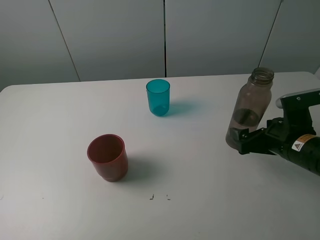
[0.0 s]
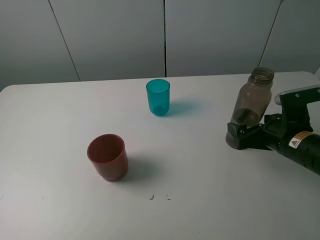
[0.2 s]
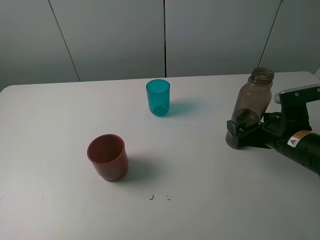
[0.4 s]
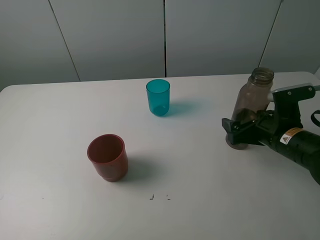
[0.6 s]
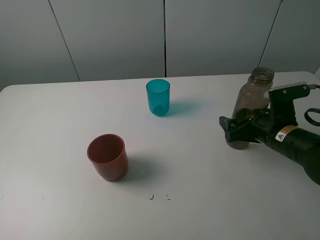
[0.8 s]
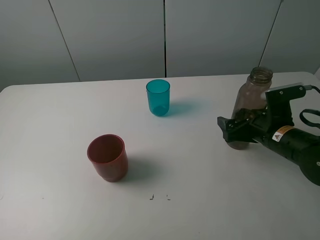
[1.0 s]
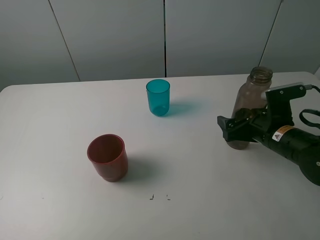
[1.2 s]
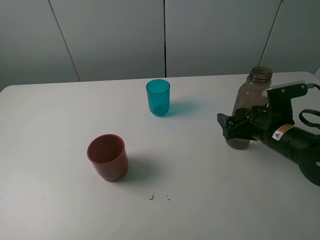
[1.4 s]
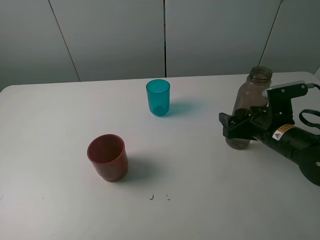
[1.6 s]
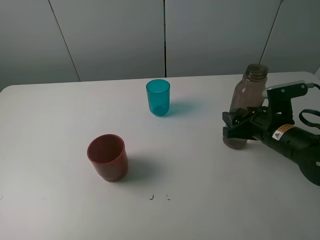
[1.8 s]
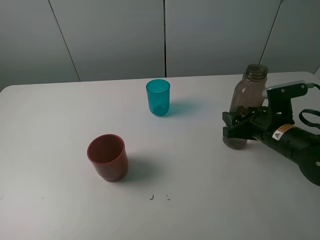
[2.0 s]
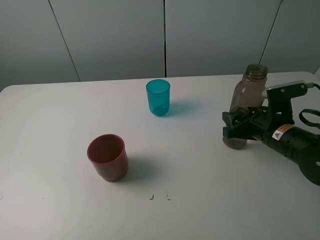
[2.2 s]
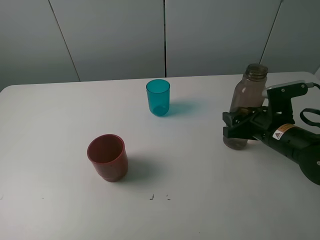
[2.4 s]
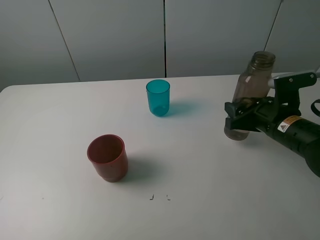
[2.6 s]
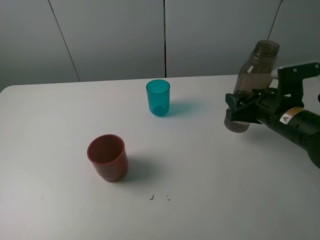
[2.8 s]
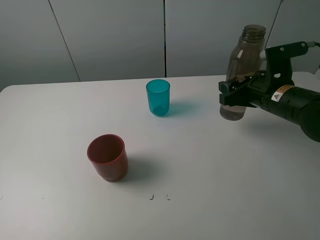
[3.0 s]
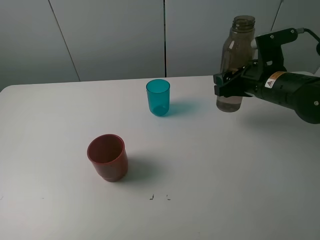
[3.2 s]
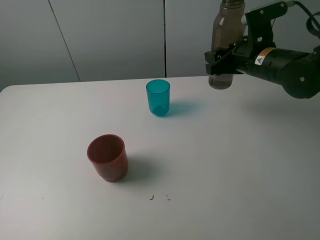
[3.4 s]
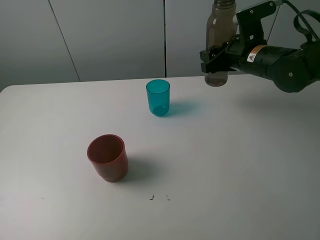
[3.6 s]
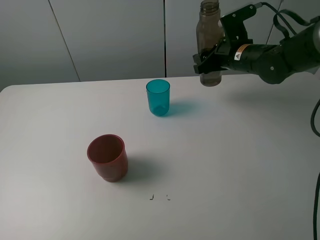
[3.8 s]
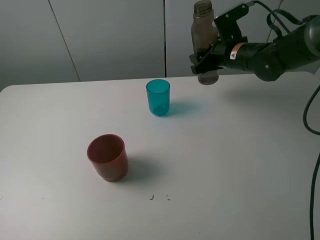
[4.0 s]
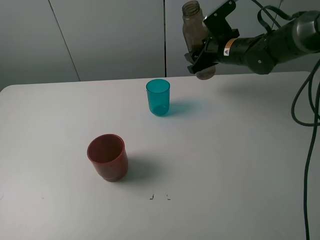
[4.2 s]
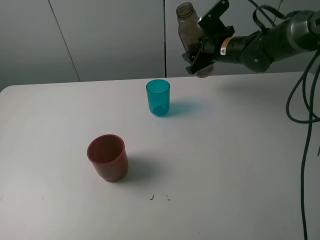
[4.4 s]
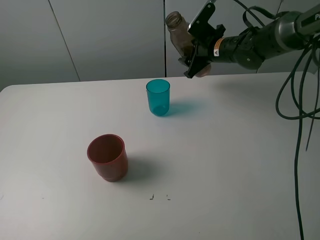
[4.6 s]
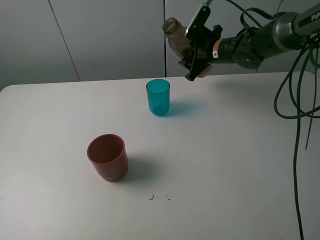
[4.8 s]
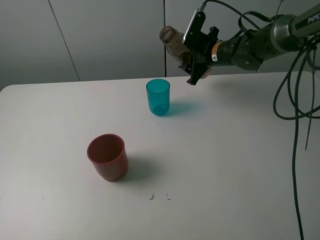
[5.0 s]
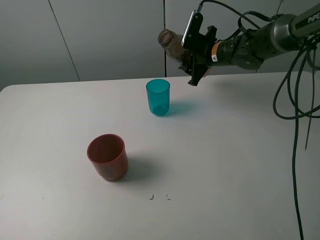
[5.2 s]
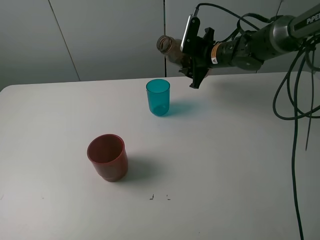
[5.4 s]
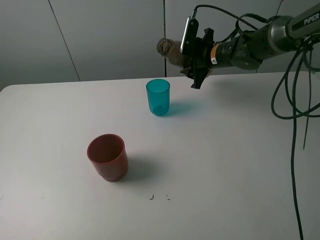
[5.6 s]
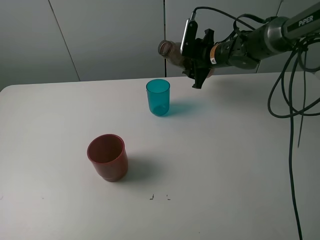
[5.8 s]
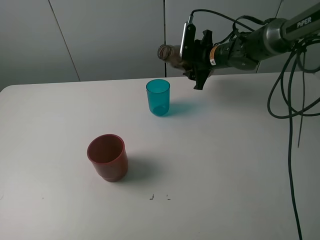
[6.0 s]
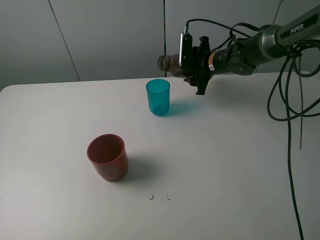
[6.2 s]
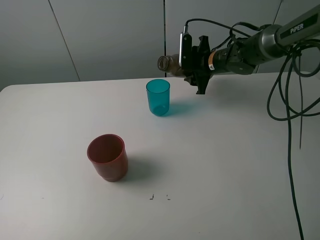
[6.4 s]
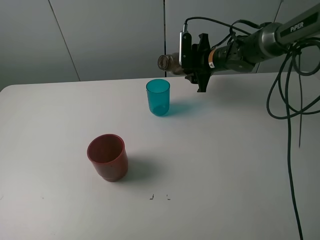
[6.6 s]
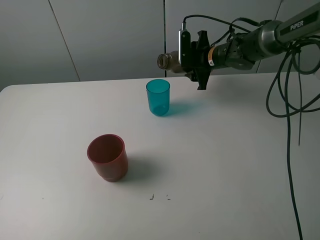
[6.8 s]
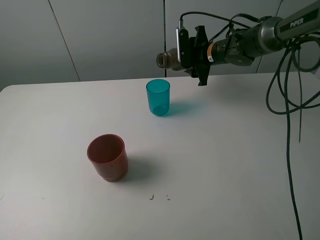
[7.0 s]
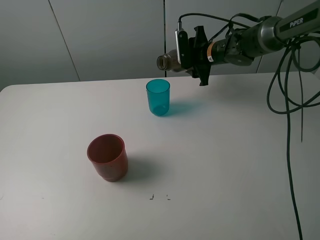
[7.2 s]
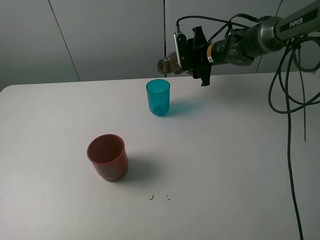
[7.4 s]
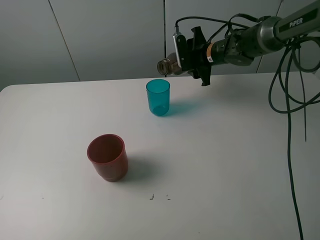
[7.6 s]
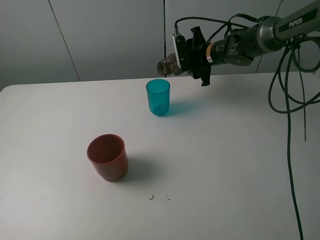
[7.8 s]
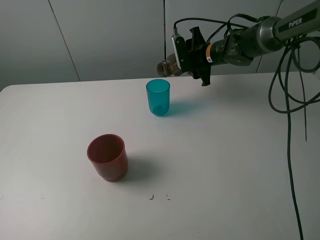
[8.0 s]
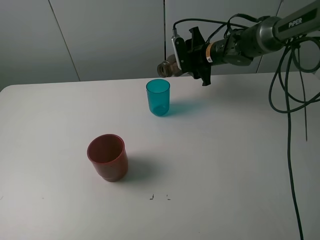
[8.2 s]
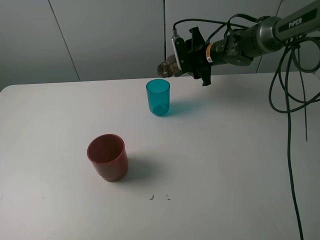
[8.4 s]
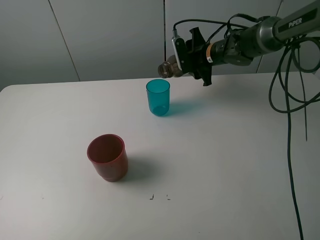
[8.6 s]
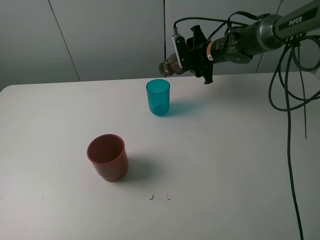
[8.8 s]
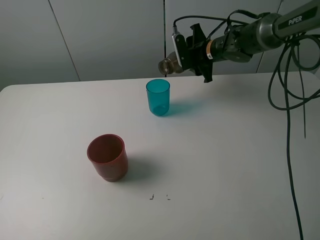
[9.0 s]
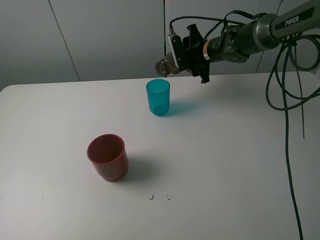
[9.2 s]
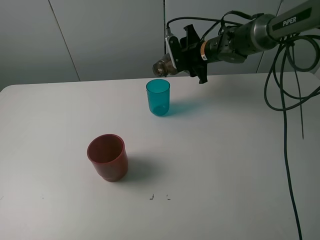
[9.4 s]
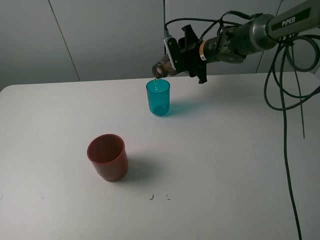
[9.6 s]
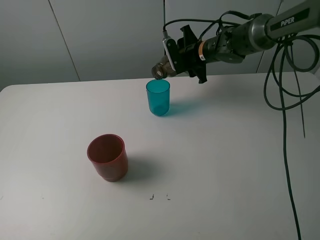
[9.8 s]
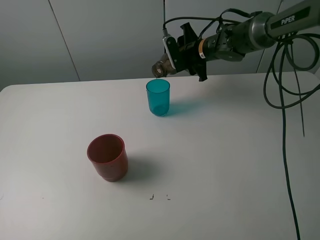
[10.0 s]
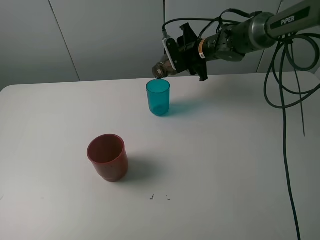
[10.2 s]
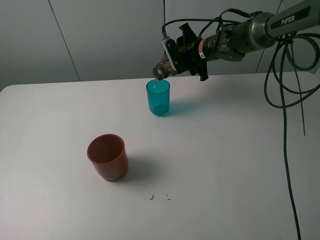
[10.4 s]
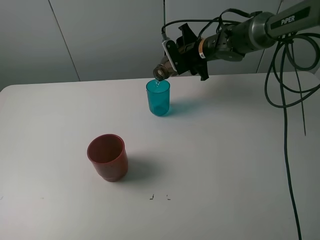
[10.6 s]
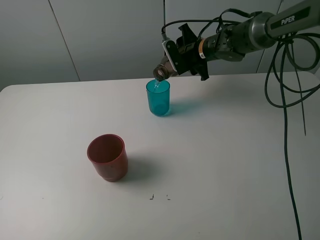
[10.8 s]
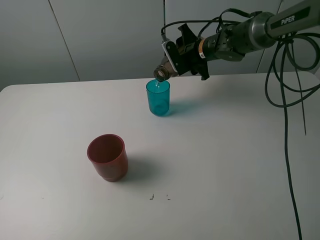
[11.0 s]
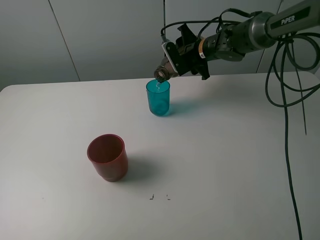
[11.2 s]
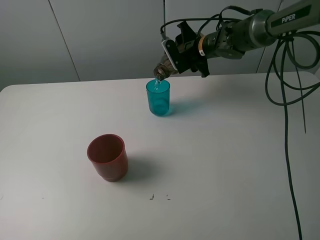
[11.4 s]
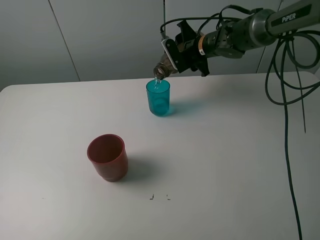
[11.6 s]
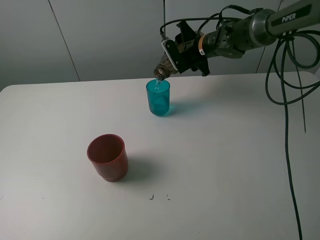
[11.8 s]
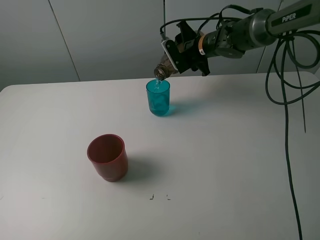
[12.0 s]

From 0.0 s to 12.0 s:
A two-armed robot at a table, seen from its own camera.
Task of the whole recording: pick up the bottle and pour water into the cup, then pick up the cup containing water and pour it into another cup.
From 0.0 s to 1.6 s: The right gripper closes its fingers.
From 1.6 s to 3.0 s: The right gripper travels upward by approximately 5 cm.
From 3.0 s to 4.4 s: The right gripper moves forward, approximately 15 cm.
From 7.6 s to 9.0 s: Both grippers stay put.
From 9.0 s to 12.0 s: The grippers move only a little.

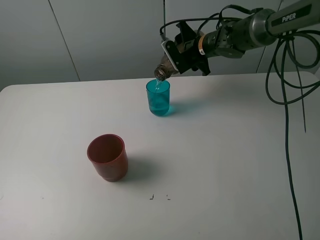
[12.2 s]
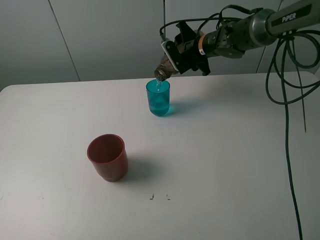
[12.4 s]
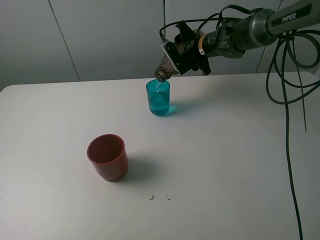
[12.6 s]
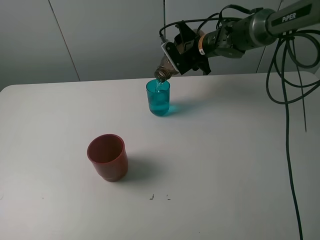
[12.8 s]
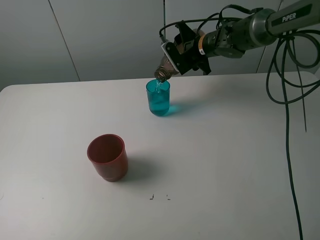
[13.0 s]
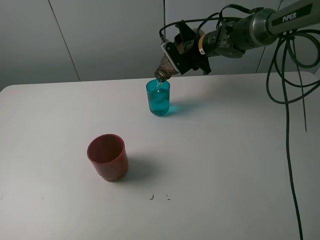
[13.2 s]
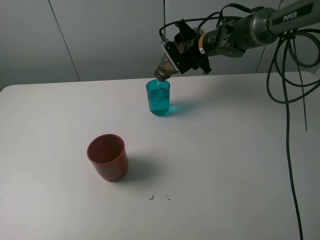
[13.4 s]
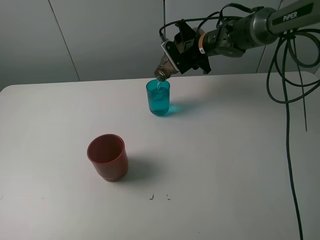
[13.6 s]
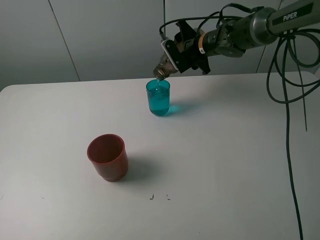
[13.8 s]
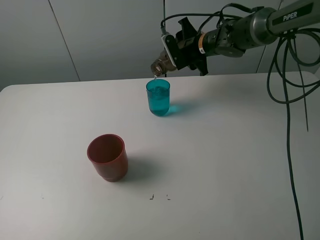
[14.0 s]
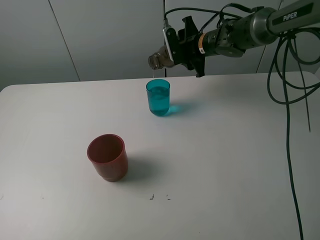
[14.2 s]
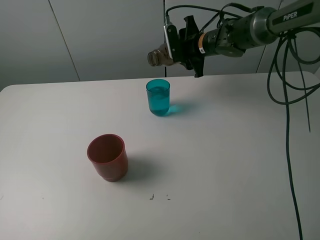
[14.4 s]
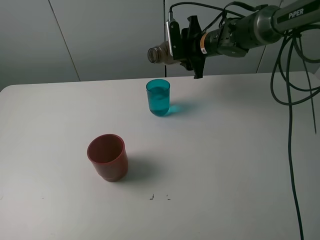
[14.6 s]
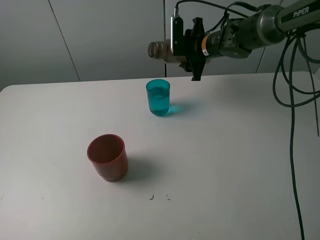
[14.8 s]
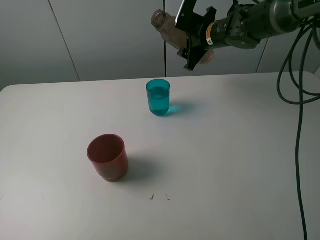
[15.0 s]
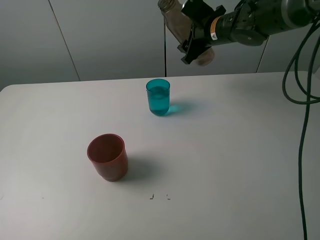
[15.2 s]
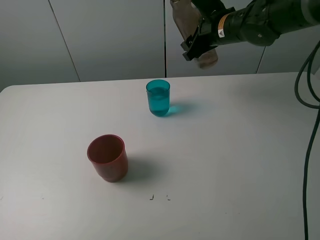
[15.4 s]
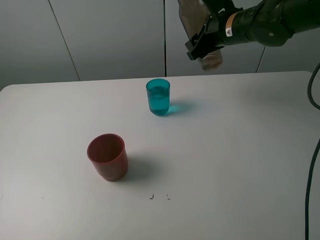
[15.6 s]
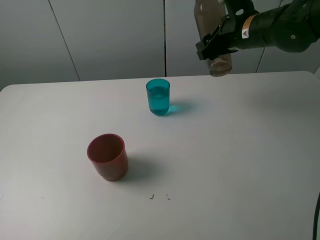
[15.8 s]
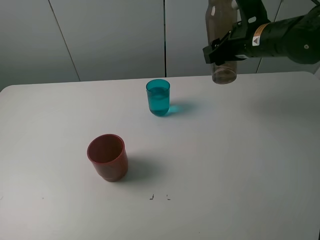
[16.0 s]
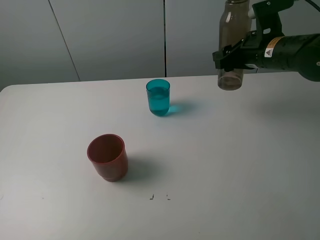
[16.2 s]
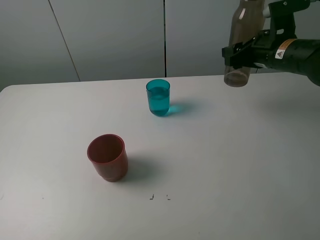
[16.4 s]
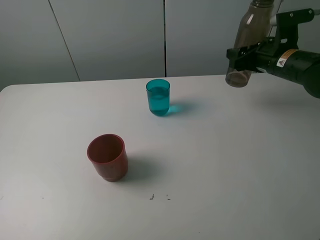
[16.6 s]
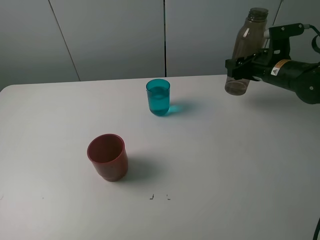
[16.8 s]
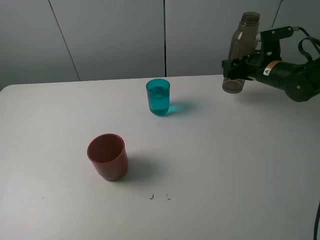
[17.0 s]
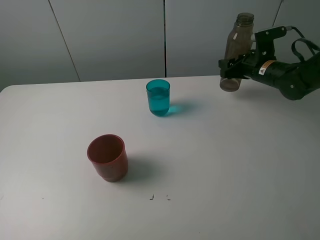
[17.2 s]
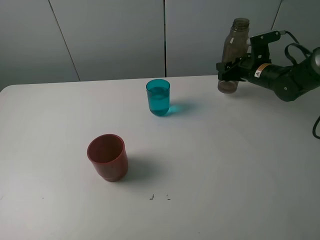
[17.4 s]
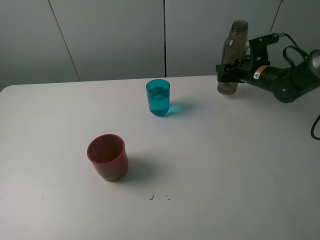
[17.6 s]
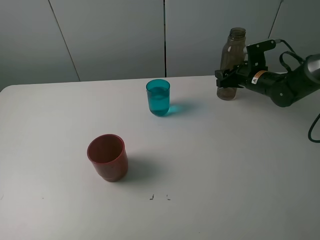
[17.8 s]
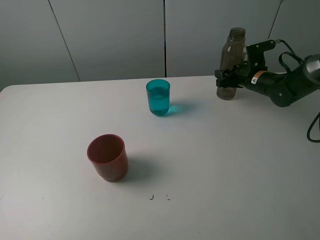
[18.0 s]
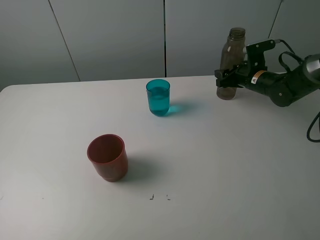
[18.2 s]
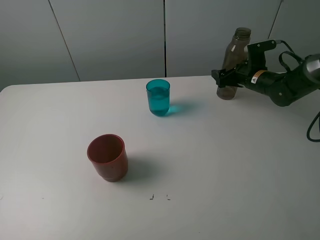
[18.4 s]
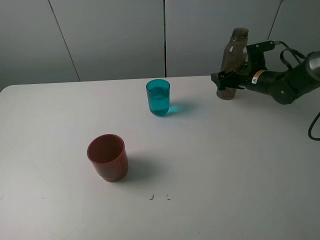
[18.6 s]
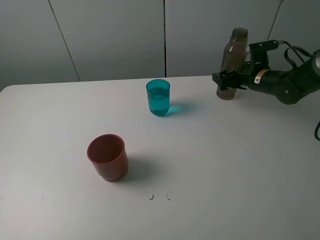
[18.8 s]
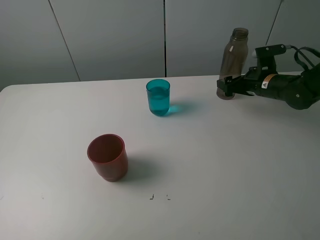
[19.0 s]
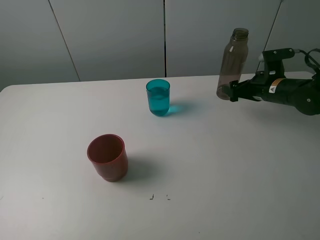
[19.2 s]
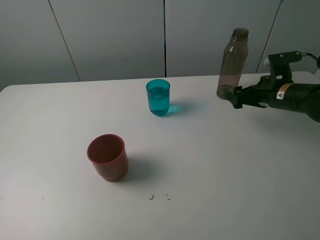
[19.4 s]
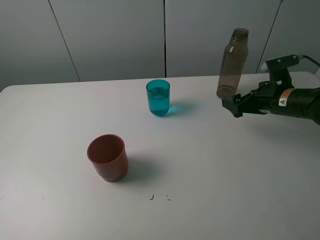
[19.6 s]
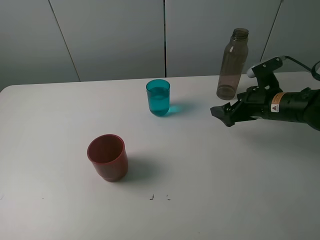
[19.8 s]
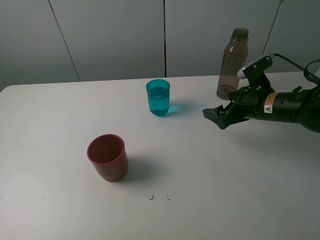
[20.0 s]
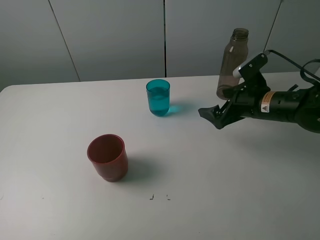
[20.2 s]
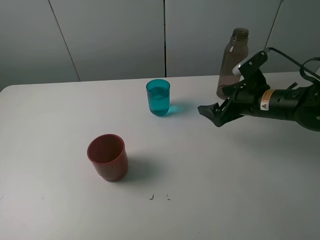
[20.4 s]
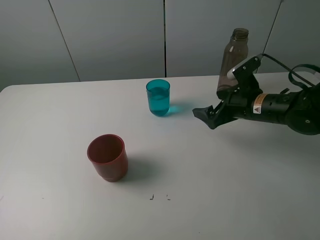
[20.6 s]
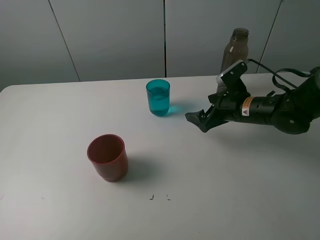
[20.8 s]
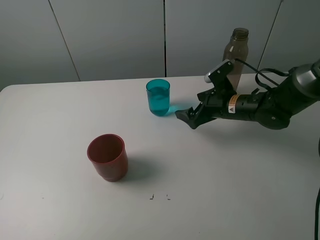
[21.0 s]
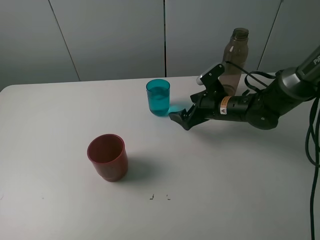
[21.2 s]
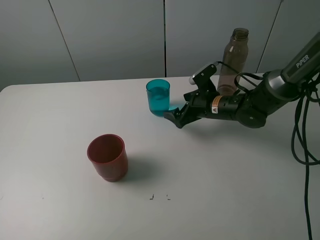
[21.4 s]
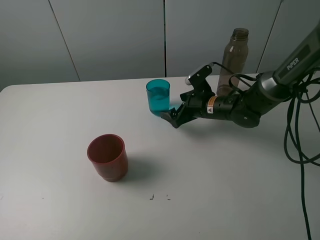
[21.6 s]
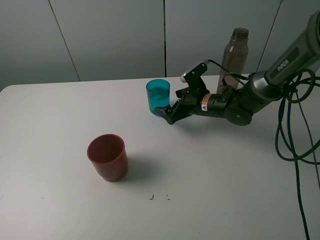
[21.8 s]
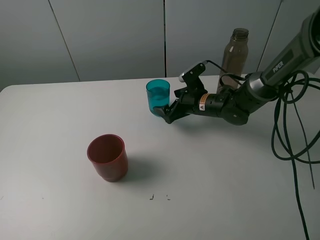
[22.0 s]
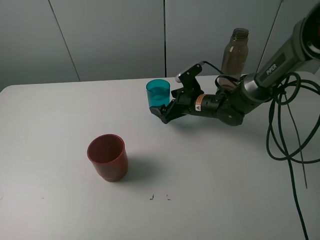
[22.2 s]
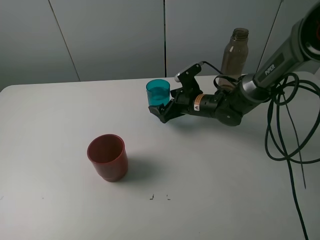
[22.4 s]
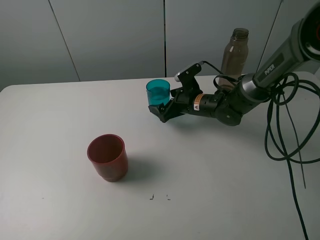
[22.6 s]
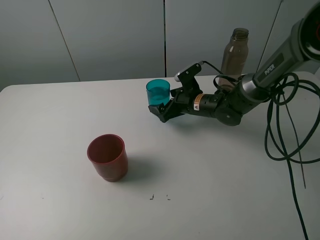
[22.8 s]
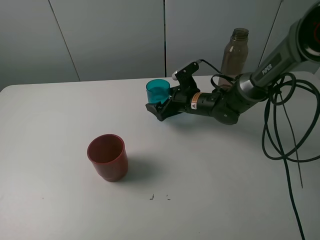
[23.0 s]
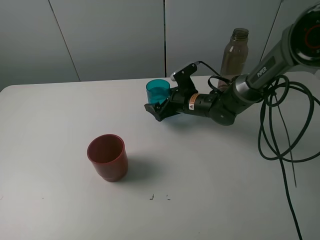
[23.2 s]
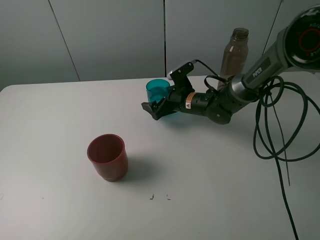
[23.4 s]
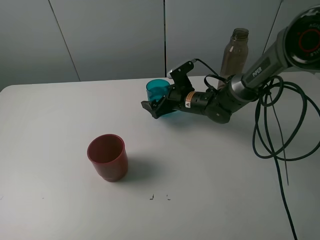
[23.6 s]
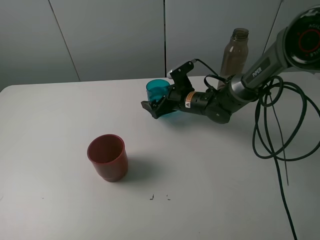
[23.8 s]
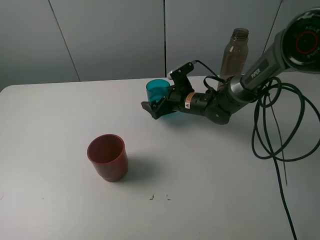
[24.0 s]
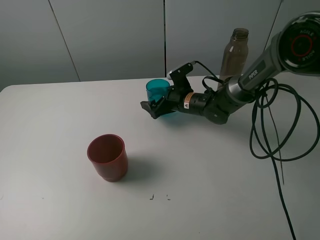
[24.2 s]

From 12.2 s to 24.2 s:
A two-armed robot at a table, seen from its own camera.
Task of the whole recording: pick up the bottle and pour water into the cup, then pick up the cup containing water and pour it into another cup.
Step, from 14.2 s to 18.4 s: Place the brown bottle with the right gripper.
From 12.2 s to 13.8 s: The two grippers keep their place.
From 13.8 s to 15.2 s: The right gripper heads upward, covering some 5 cm.
From 15.2 s to 16.6 s: The right gripper travels to the right and backward by some 15 cm.
From 16.6 s to 18.2 s: The right gripper moves downward and forward, some 10 cm.
From 18.2 s to 19.8 s: The right gripper heads backward, covering some 15 cm, and opens up.
From 19.8 s to 21.2 s: The right gripper travels to the left by approximately 10 cm.
From 21.2 s to 22.6 s: The right gripper ends up about 5 cm from where it was.
From 22.6 s to 24.2 s: The grippers stay close to where they were, moving slightly.
